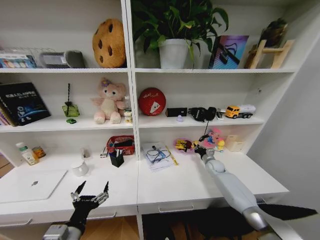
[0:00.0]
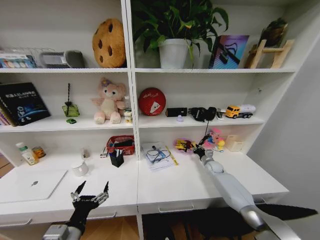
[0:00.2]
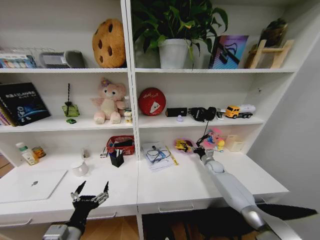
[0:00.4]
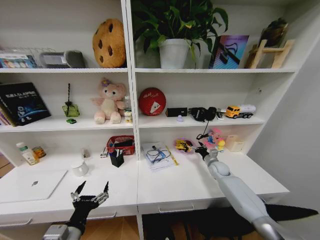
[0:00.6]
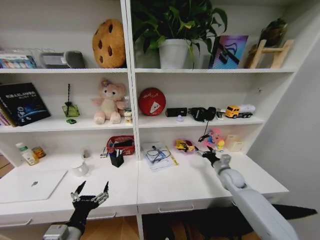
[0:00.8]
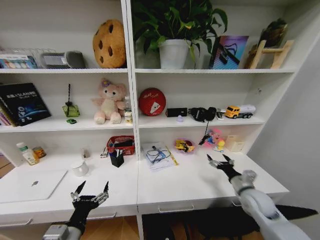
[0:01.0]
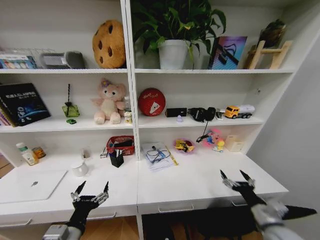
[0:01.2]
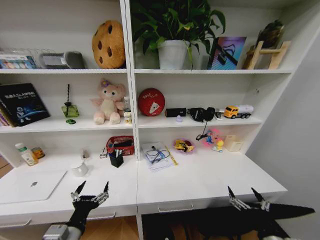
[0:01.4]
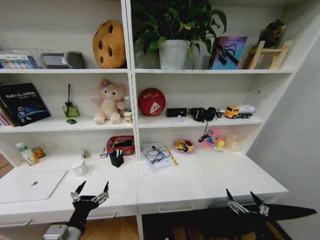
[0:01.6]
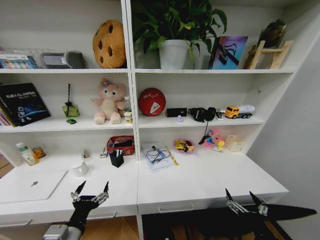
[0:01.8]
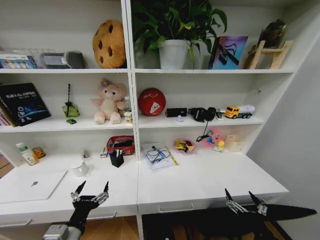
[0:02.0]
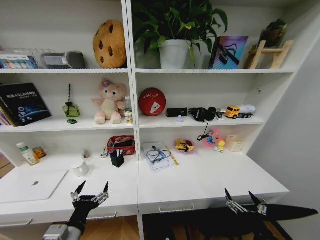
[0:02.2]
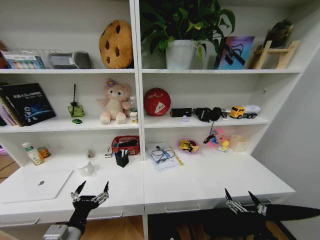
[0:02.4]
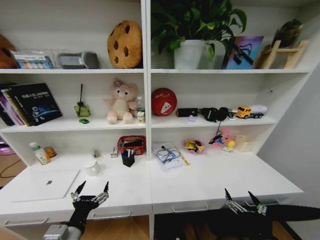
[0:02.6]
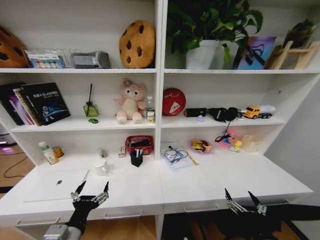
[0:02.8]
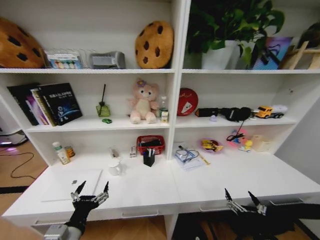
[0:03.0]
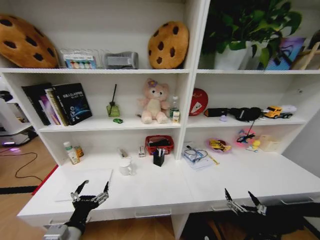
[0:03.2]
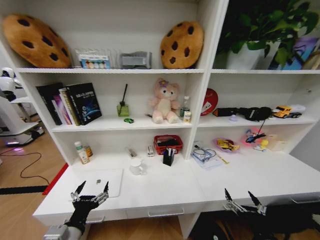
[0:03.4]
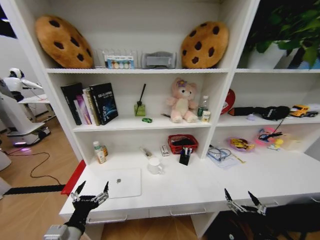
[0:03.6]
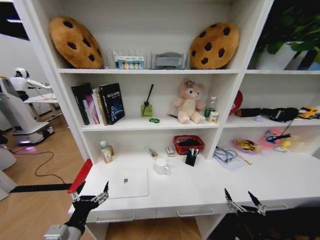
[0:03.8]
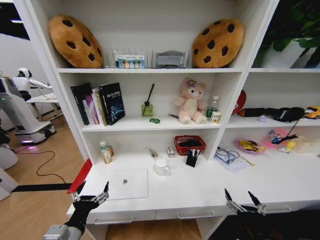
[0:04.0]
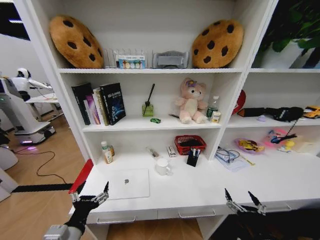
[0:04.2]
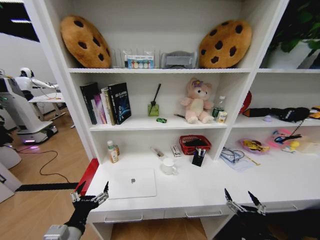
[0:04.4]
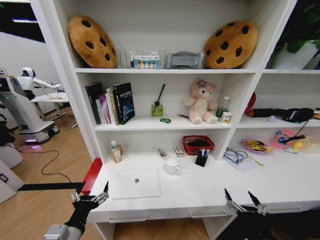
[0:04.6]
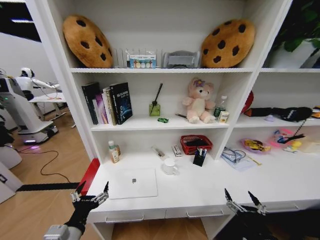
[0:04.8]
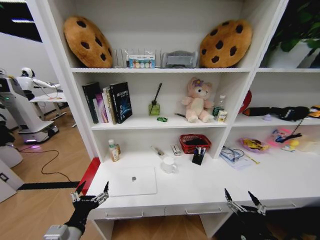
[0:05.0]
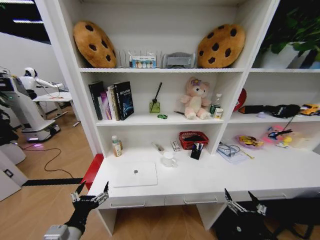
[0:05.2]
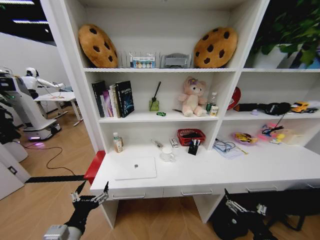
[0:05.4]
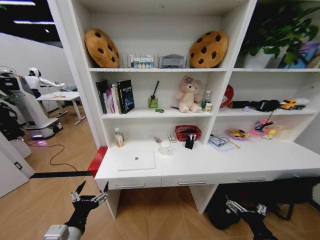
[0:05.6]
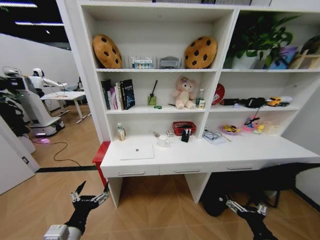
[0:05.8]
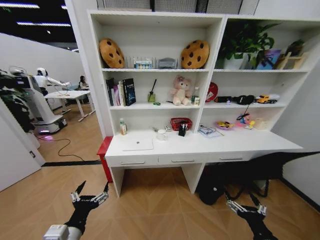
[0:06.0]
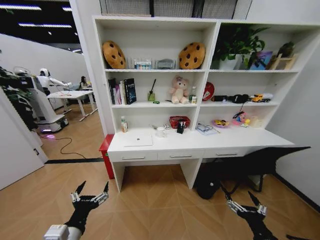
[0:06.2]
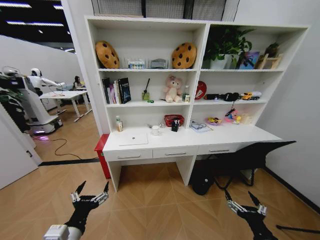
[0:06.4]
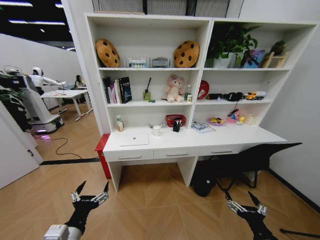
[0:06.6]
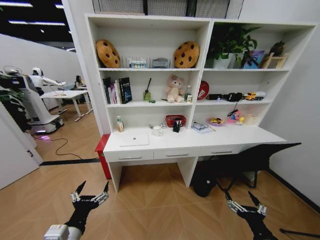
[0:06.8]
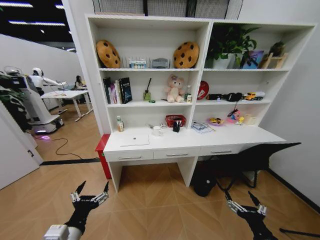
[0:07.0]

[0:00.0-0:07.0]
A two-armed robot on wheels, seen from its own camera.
Task of the whole recording: Organize the objects on the table.
0:00.0 to 0:01.4: The right gripper travels backward by some 40 cm, and opens up.
